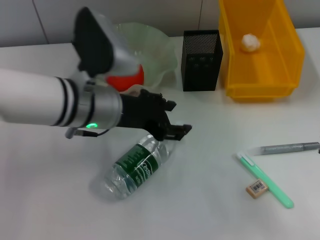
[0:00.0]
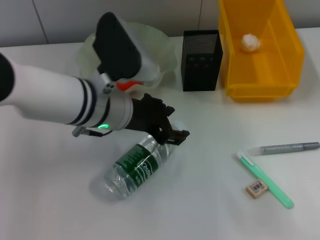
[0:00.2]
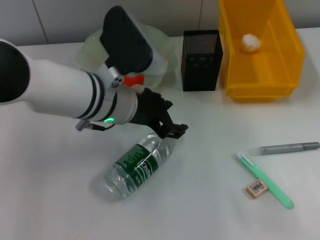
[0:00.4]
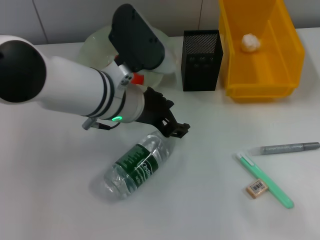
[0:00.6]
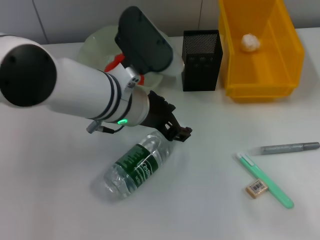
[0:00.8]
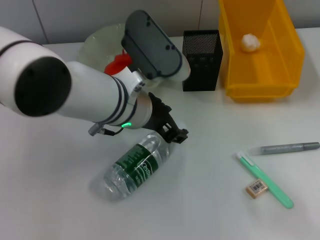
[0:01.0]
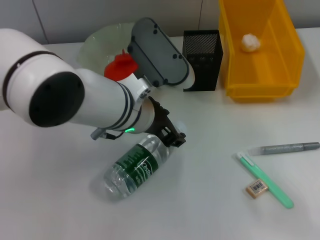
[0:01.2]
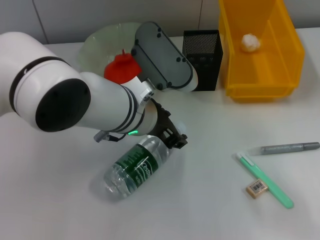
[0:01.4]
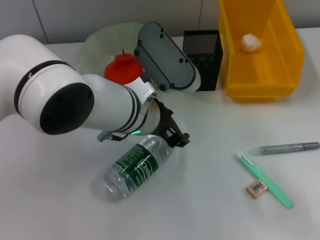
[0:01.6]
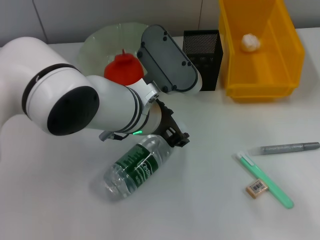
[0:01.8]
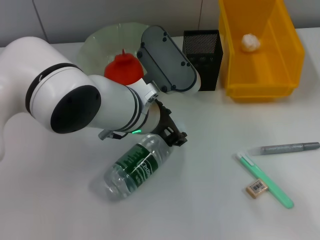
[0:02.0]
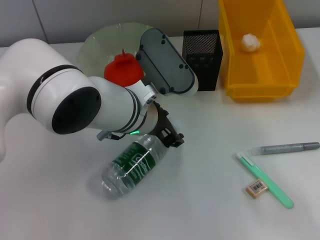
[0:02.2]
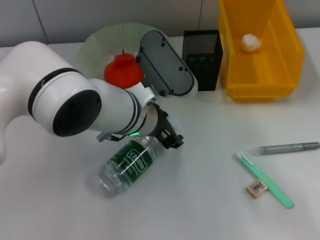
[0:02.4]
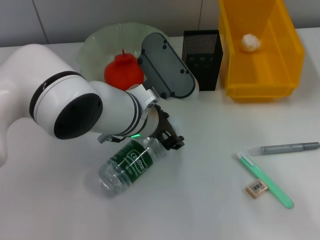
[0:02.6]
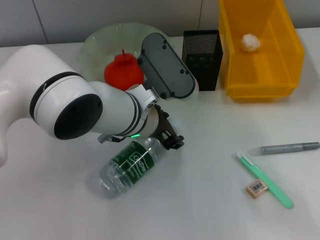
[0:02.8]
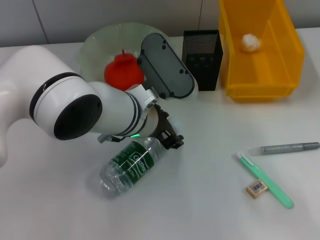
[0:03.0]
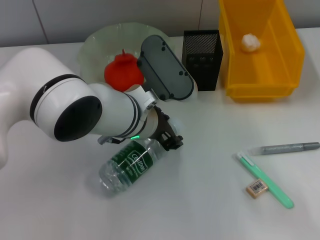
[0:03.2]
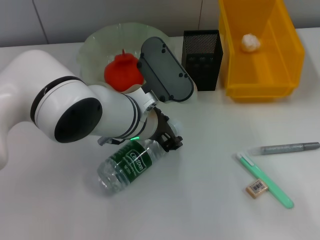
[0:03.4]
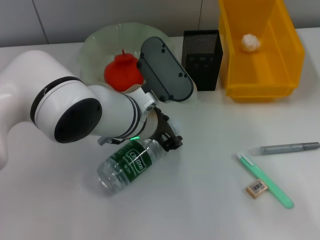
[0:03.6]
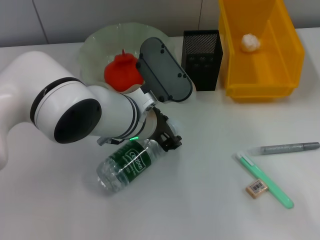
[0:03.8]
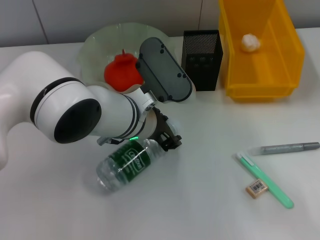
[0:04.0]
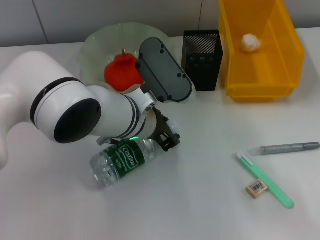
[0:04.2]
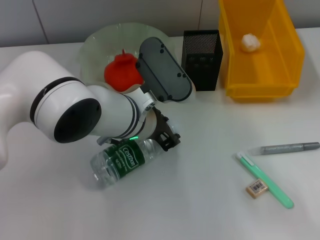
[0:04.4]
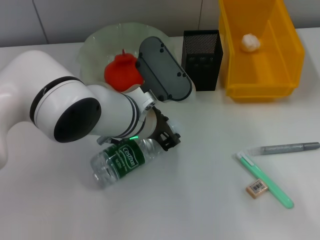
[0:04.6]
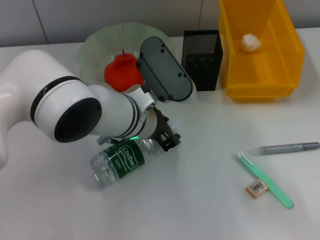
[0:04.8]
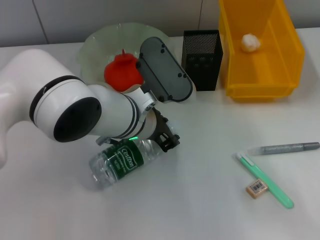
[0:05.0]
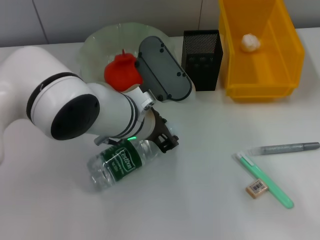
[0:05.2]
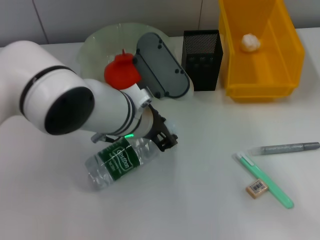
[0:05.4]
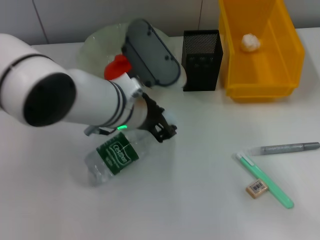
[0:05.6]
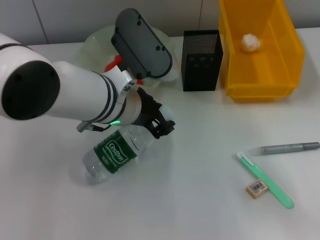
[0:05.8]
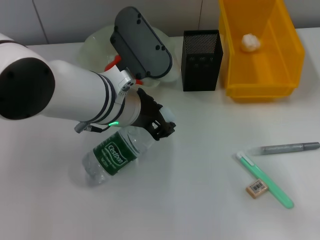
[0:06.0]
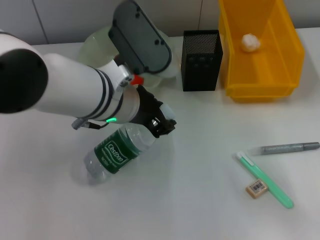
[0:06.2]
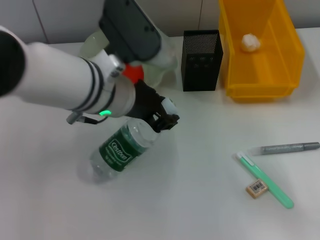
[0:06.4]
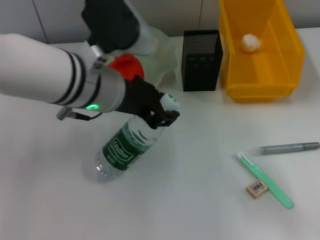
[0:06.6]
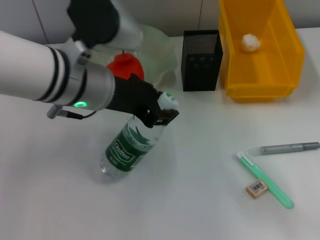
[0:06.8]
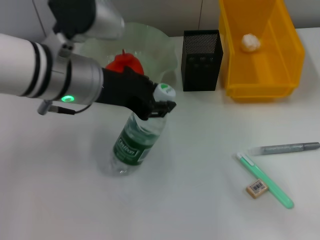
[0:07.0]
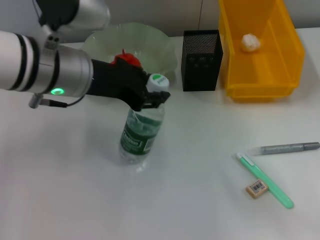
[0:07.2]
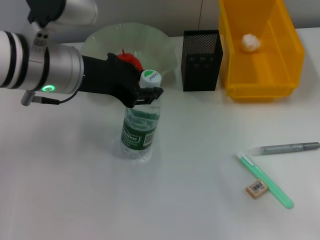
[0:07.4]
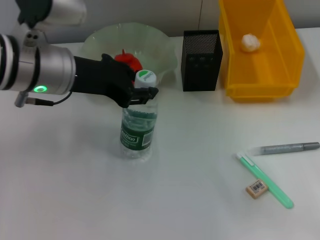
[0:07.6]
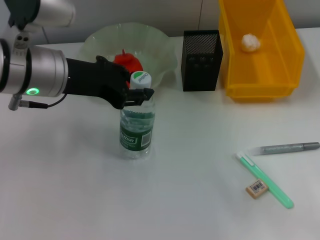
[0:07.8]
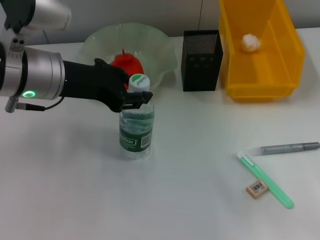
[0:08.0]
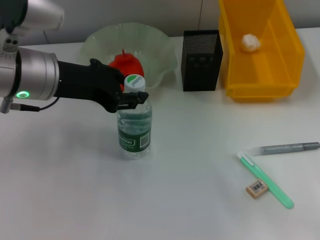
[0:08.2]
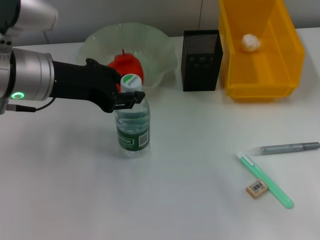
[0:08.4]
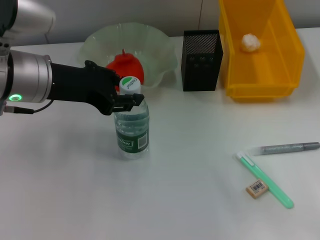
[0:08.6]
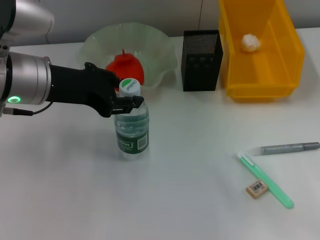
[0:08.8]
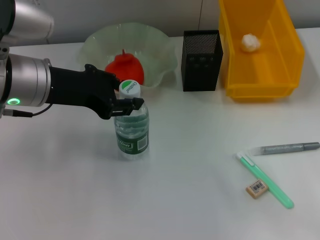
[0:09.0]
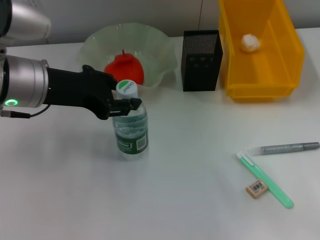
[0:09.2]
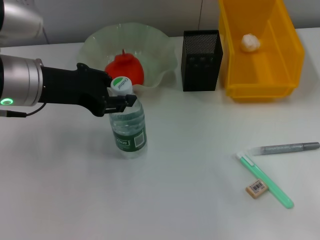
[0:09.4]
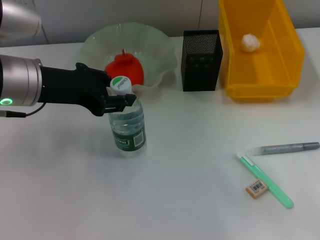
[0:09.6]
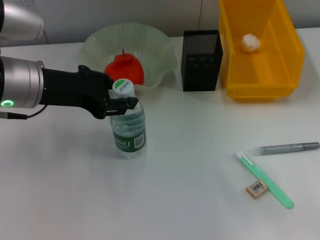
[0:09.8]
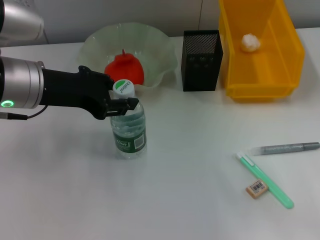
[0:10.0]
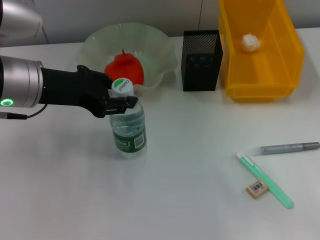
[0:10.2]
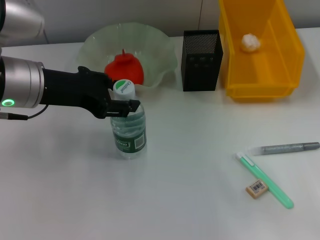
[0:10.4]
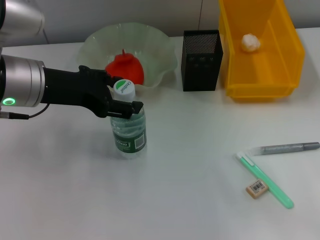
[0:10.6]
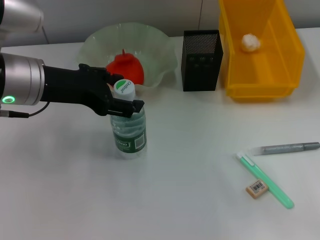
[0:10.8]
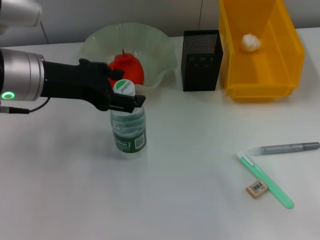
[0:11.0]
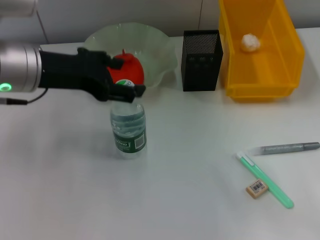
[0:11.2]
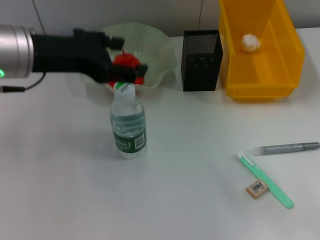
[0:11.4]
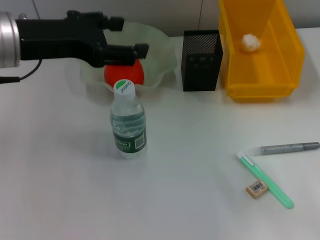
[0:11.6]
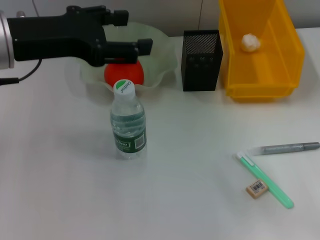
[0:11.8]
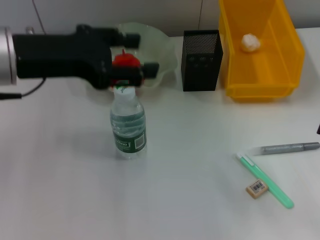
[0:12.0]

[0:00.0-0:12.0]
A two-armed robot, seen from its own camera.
Step, 0:00.0 to 0:04.6: Grab the water bottle with the left hand.
Step, 0:04.8 to 0:11.2: Place the water bottle on the table with the left hand.
0:00.0 to 0:01.6: The left gripper heads to the right, covering roughly 5 cm.
0:01.6 to 0:03.0: The grippers make only small movements.
0:03.0 to 0:04.4: The two grippers keep their place.
0:04.4 to 0:06.0: The left gripper moves approximately 5 cm.
0:06.0 to 0:07.6: The left gripper is displaced to the left by roughly 10 cm.
0:07.6 to 0:09.0: The grippers move only a little.
0:09.0 to 0:10.4: Both grippers stay about where they are.
0:10.4 to 0:12.0: There are only small adjustments of the grippers.

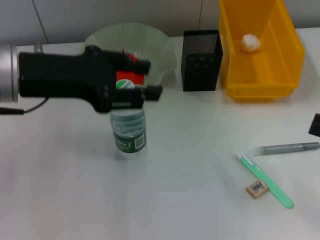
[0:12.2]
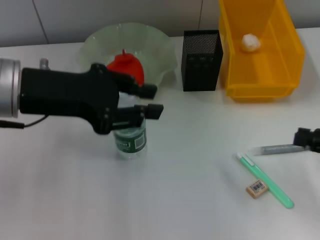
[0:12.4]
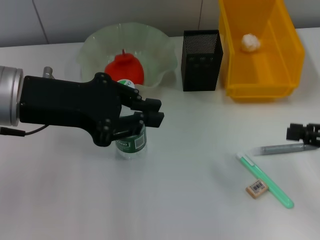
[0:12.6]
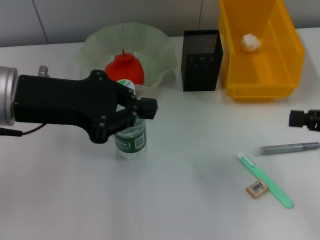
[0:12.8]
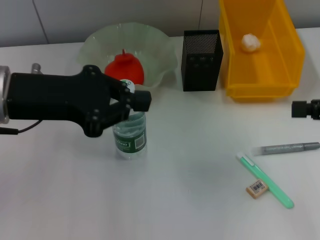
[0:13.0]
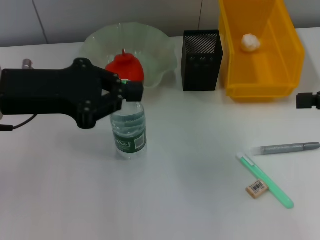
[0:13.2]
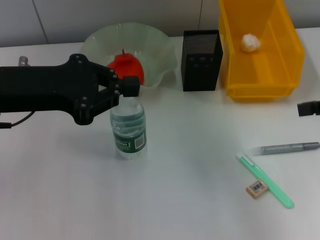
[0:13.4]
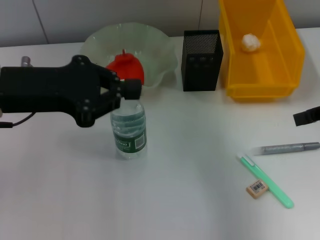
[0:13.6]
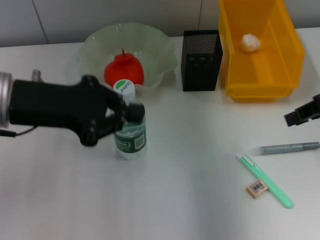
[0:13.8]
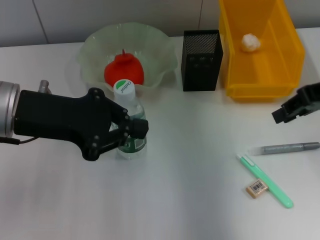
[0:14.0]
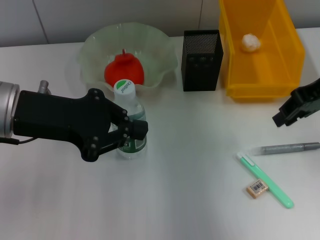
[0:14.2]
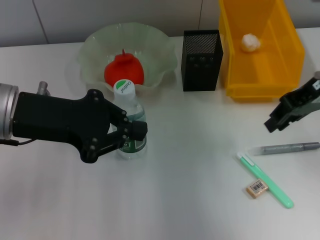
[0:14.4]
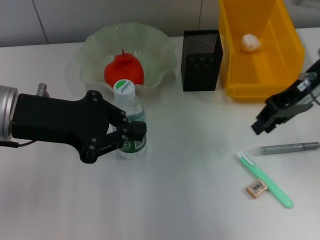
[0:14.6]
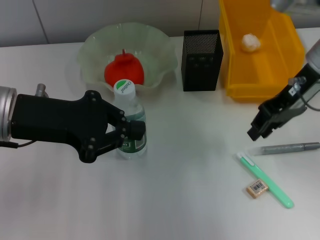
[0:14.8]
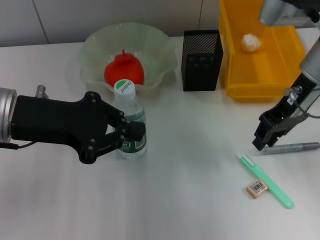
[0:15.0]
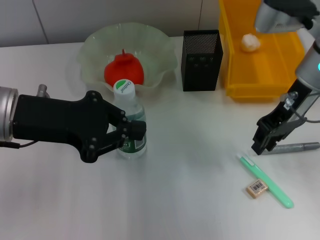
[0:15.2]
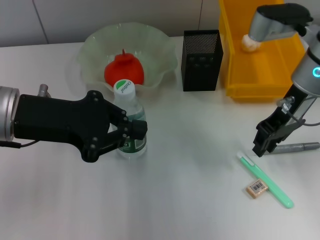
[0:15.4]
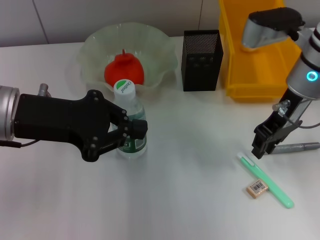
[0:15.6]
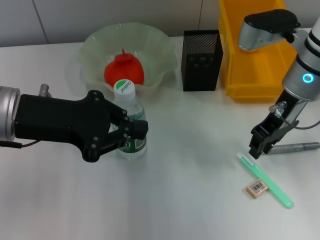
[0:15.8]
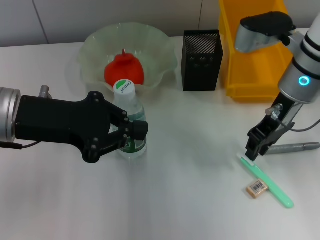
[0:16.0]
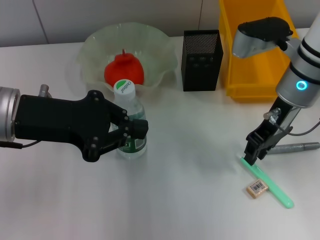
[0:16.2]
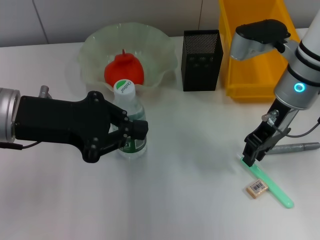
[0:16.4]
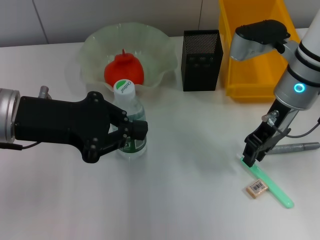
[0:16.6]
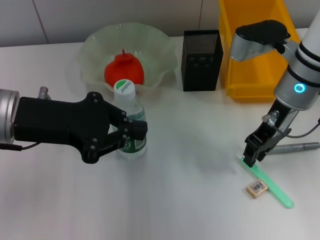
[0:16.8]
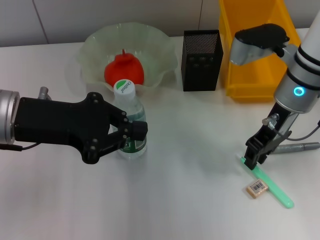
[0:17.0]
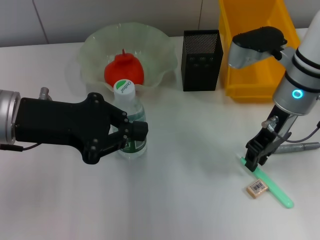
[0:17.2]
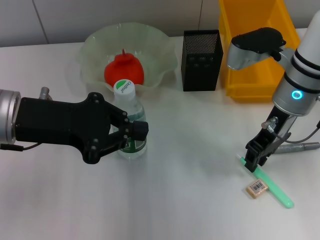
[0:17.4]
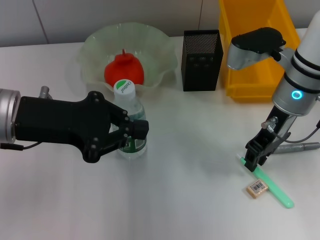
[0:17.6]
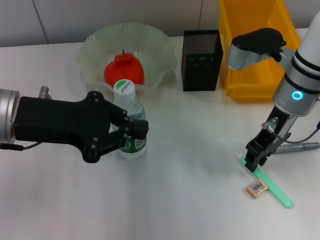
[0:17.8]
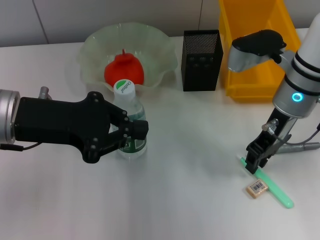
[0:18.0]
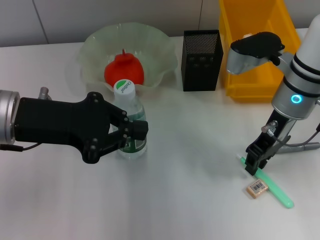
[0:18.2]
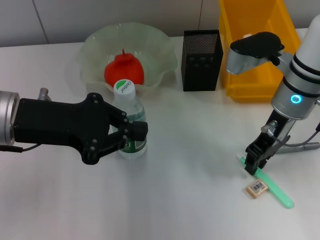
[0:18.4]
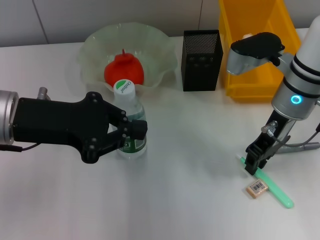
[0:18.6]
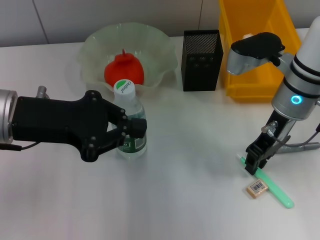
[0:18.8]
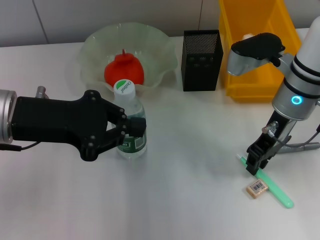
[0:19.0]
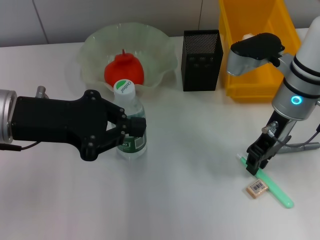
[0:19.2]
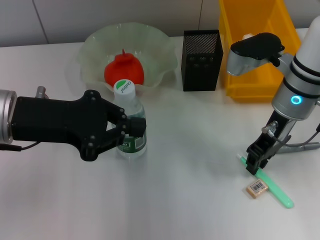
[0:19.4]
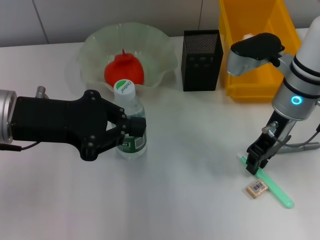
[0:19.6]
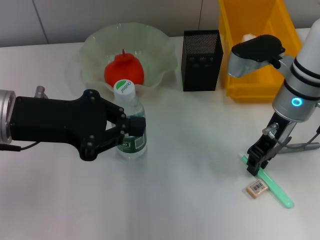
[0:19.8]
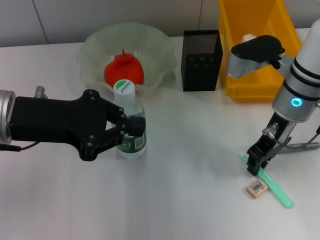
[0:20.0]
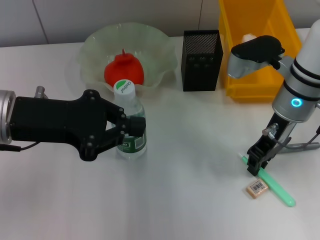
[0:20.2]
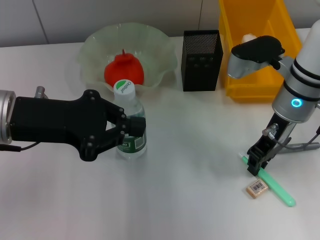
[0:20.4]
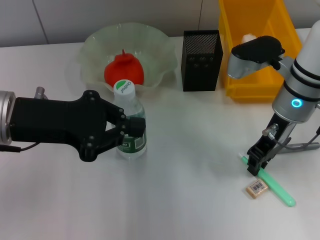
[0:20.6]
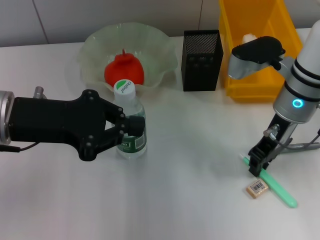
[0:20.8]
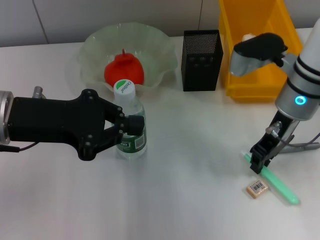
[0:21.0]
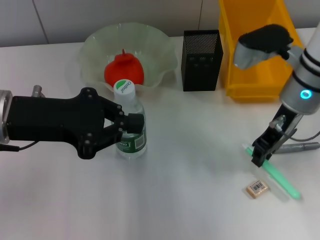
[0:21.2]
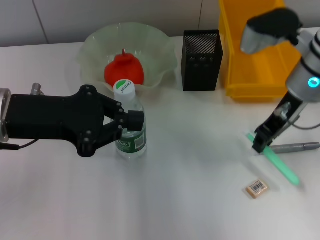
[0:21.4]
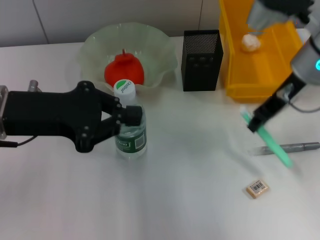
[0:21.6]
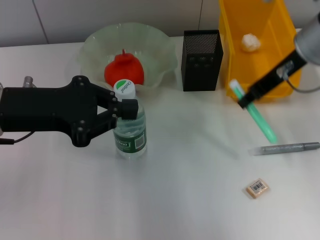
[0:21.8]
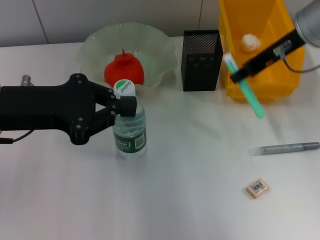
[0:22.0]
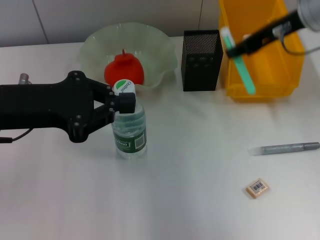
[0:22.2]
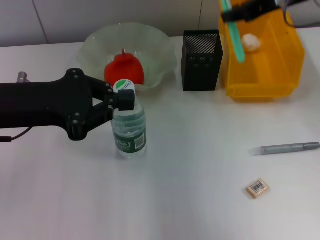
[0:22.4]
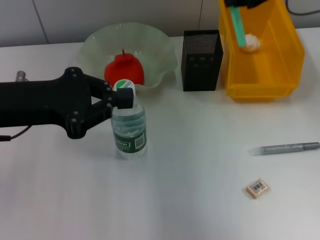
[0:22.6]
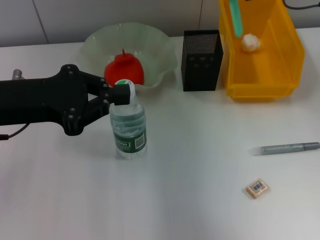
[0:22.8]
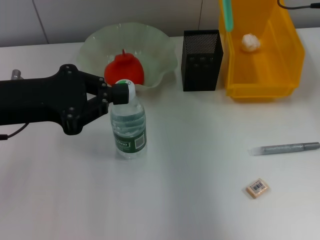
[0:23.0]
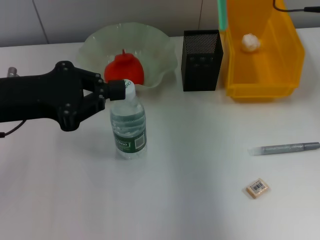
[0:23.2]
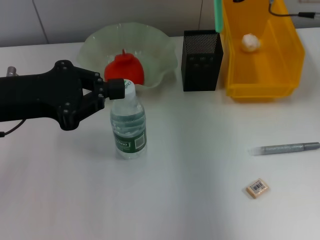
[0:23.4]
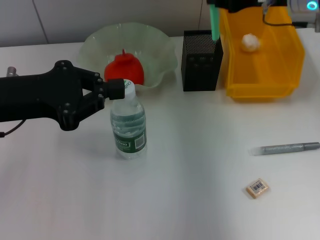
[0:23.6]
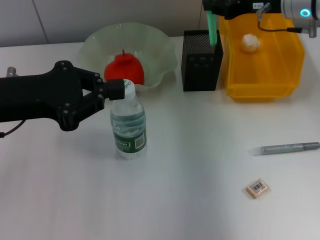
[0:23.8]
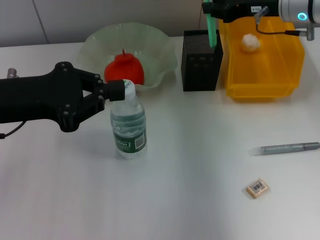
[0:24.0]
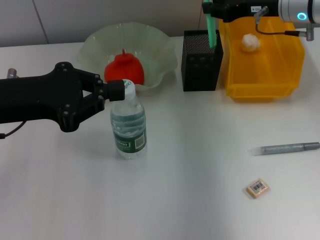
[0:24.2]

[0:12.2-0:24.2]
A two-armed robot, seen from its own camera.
Step, 0:12.2 to 0:20.6: Grab the blue utility knife with the right hand.
0:12.2 to 0:13.8: The left gripper closes up. The right gripper travels upward, forward and to the left by approximately 20 cm.
0:13.8 to 0:15.2: The right gripper heads to the left and forward, covering about 10 cm.
0:15.2 to 0:18.2: The grippers stay close to where they were, moving slightly.
0:18.2 to 0:19.8: The two grippers keep their place.
0:19.8 to 0:21.2: The grippers stay close to where they were, moving slightly.
0:21.2 to 0:22.6: The right gripper heads upward, covering about 10 cm.
0:22.6 to 0:24.2: The right gripper shifts about 10 cm downward.
